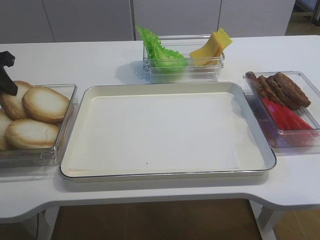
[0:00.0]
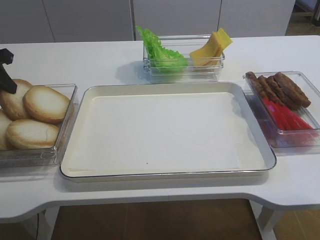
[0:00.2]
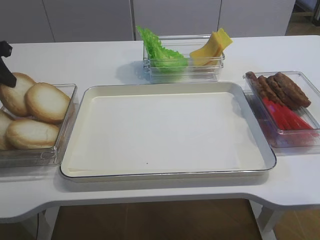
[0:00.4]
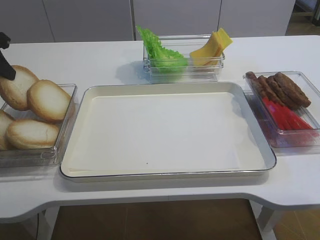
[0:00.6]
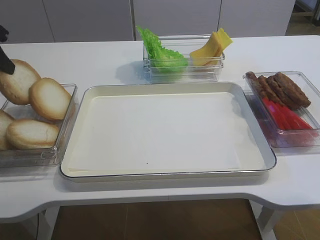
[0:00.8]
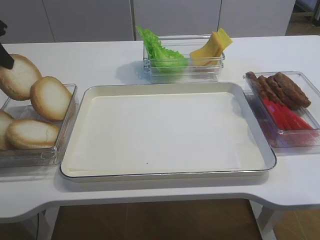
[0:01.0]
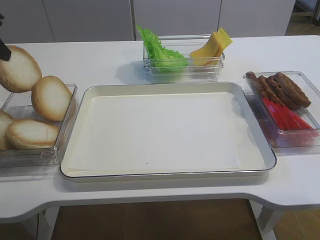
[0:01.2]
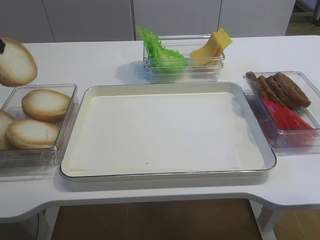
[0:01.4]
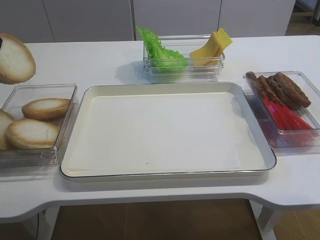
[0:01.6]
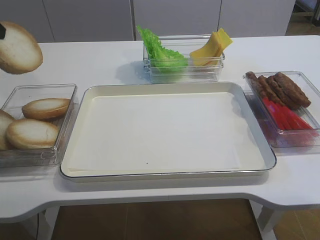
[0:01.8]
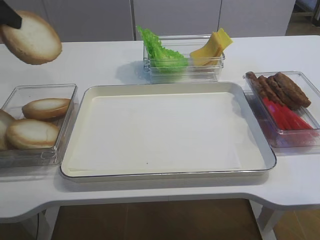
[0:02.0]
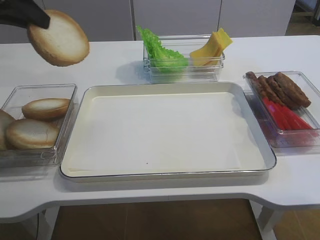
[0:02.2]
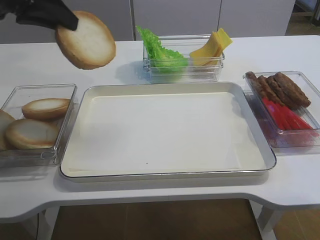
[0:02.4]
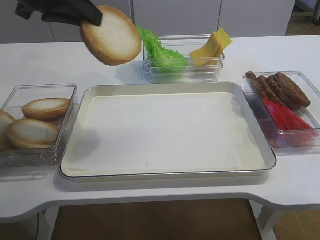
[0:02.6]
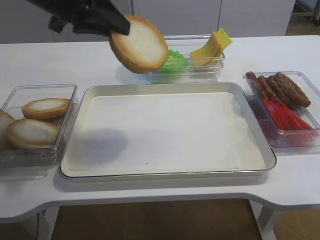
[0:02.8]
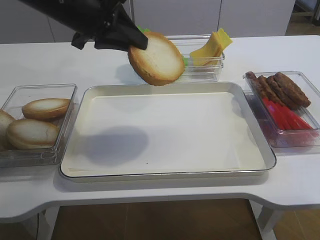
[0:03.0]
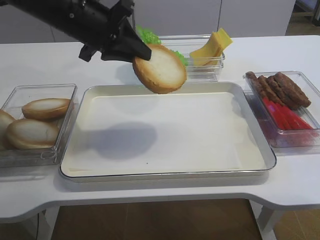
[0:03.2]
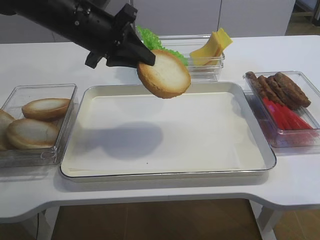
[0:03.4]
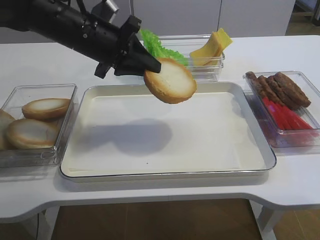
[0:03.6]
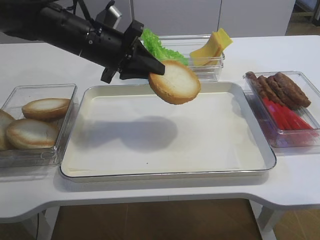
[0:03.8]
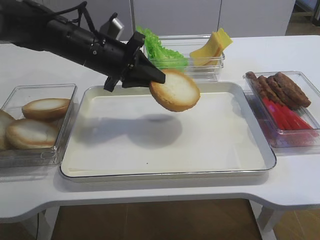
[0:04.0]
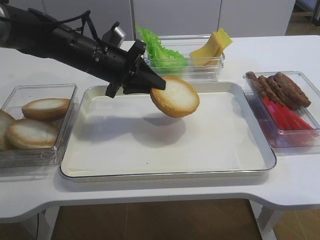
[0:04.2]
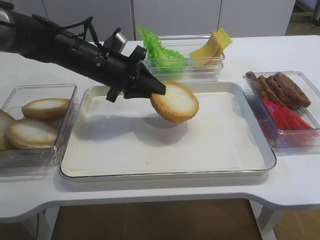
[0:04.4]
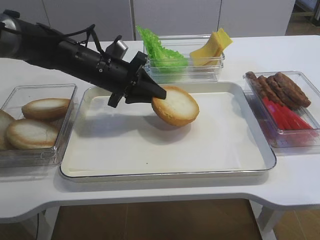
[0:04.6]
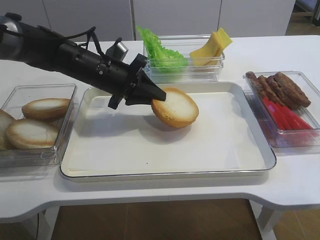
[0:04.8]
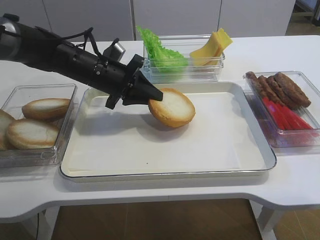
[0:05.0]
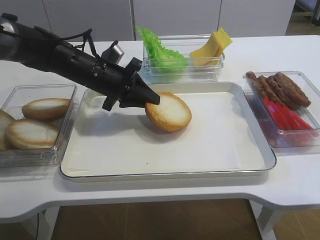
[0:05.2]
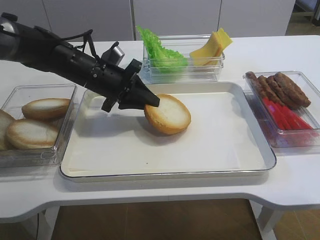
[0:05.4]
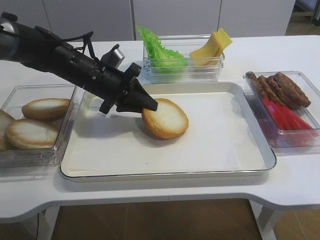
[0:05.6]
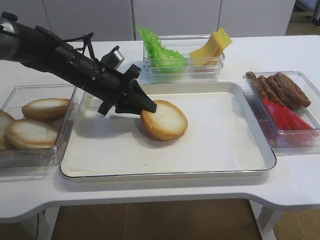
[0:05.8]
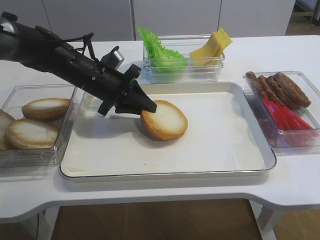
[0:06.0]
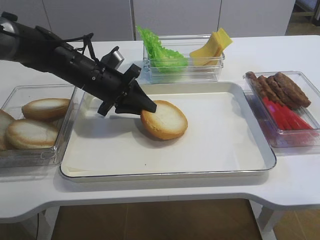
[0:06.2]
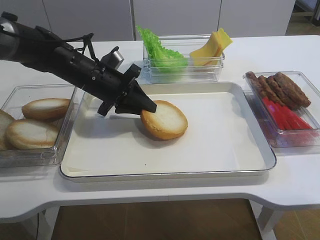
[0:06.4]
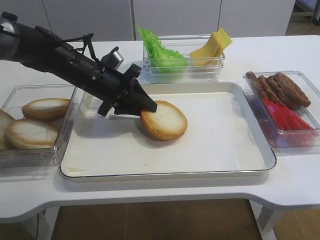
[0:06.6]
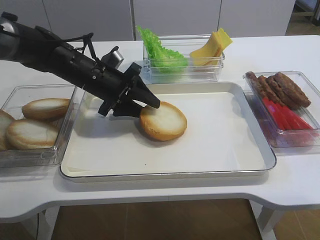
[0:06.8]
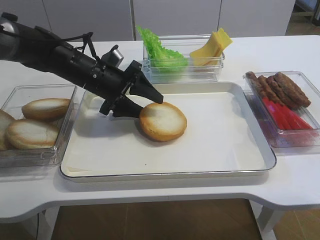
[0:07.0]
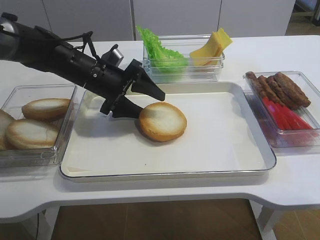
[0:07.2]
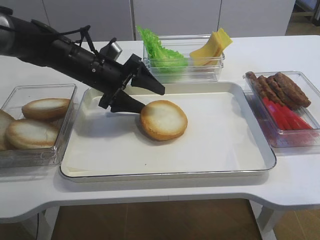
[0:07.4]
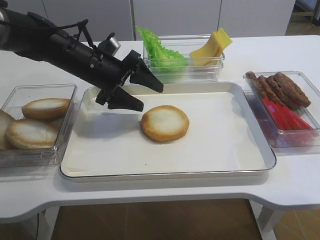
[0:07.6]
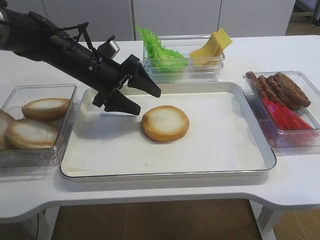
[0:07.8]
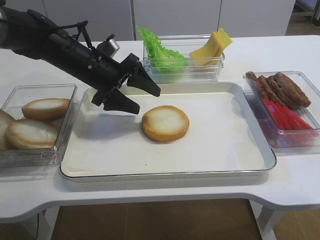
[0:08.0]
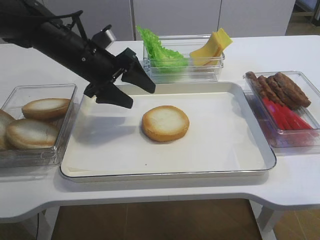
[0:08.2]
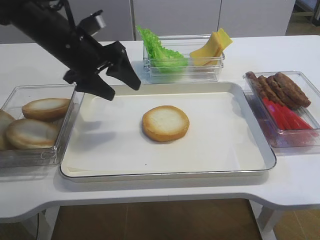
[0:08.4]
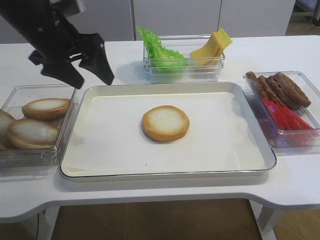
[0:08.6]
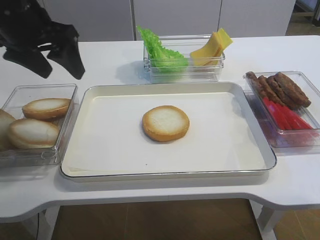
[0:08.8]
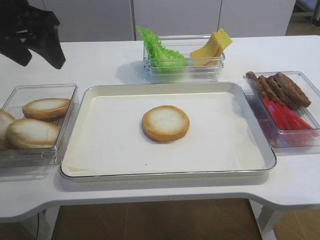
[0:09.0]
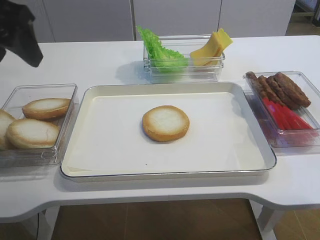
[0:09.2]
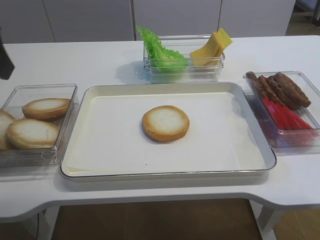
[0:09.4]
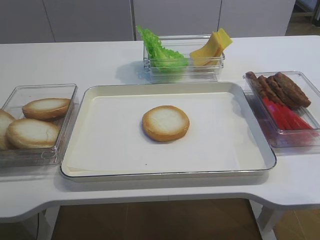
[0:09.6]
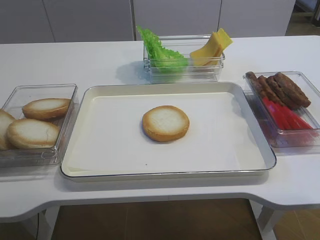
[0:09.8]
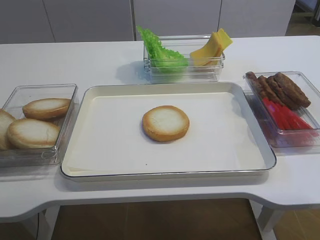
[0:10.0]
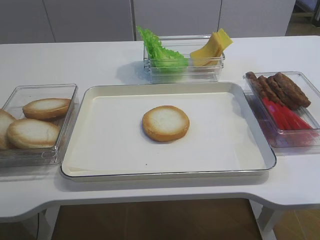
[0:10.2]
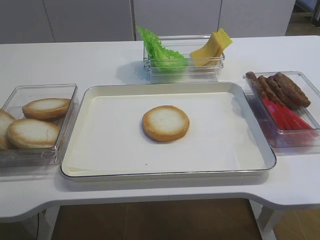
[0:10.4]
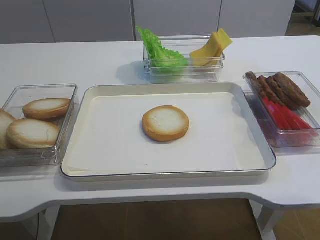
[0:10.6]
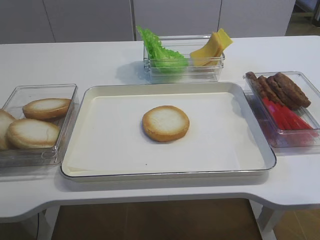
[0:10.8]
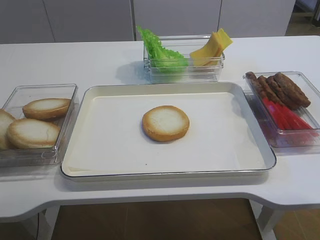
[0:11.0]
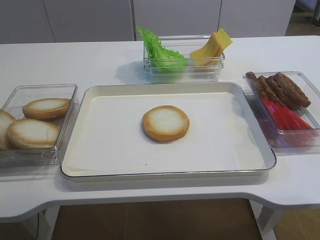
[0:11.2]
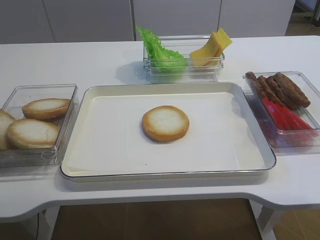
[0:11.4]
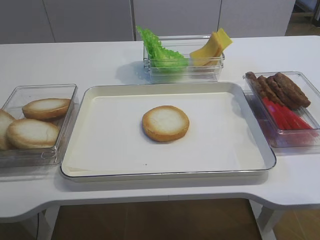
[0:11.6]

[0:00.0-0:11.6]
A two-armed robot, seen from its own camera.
Step, 0:01.4 to 0:07.4: Place the bread slice on the tray with the left gripper.
0:00.0 to 0:01.4: The left gripper moves upward, roughly 10 cm.
0:01.4 to 0:02.8: The left gripper heads to the right, covering approximately 15 cm.
0:02.8 to 0:04.4: The left gripper is displaced downward by roughly 15 cm.
0:04.4 to 0:05.8: There are only small adjustments of the grippers.
0:05.8 to 0:07.2: The left gripper opens up.
0:07.2 to 0:08.8: The left gripper is displaced upward, to the left and backward by about 20 cm.
0:08.8 to 0:10.2: The left gripper shifts approximately 30 cm backward.

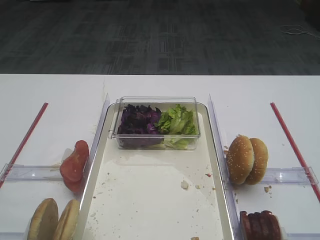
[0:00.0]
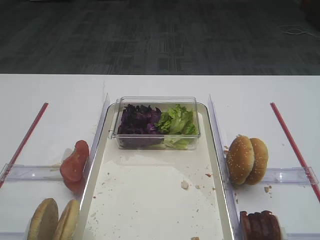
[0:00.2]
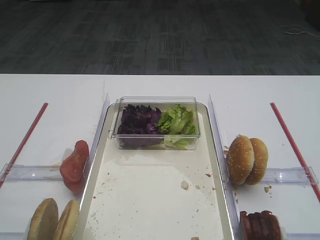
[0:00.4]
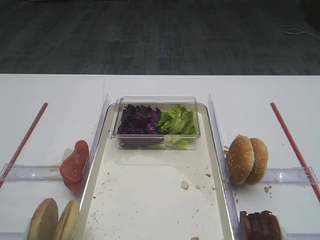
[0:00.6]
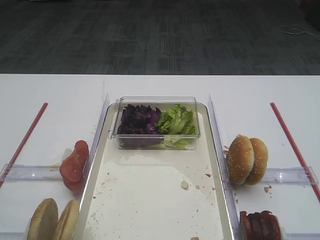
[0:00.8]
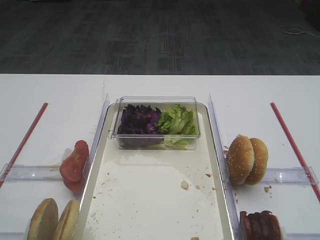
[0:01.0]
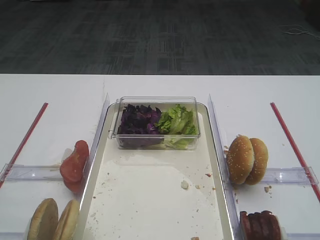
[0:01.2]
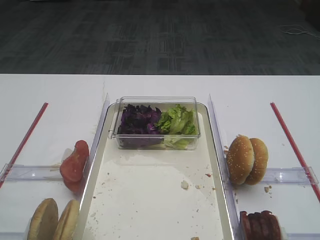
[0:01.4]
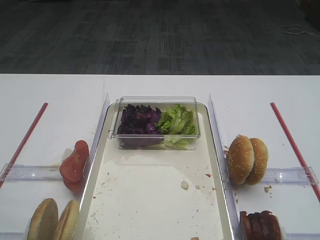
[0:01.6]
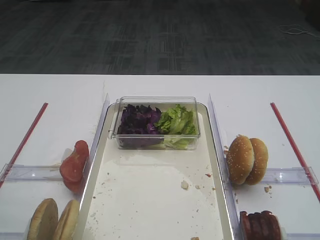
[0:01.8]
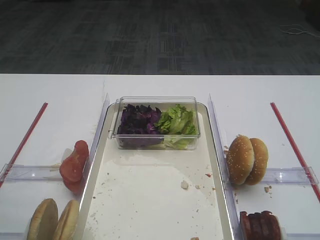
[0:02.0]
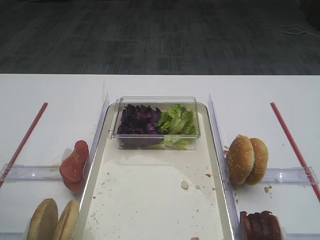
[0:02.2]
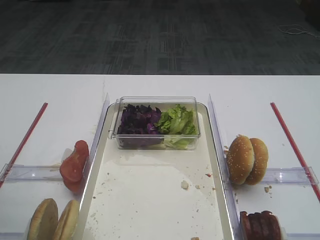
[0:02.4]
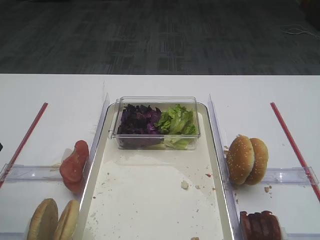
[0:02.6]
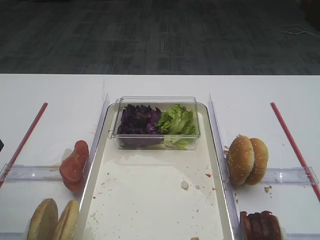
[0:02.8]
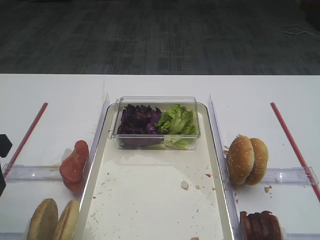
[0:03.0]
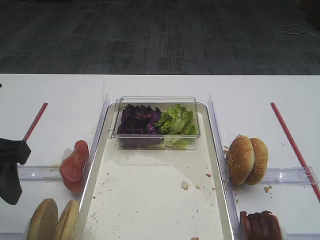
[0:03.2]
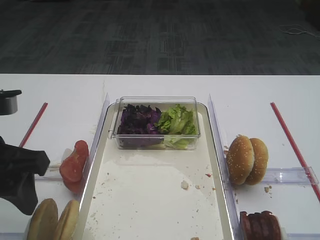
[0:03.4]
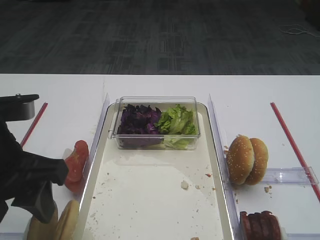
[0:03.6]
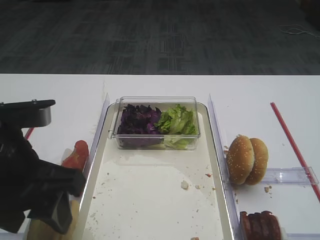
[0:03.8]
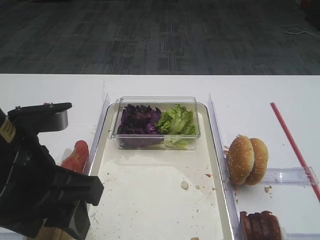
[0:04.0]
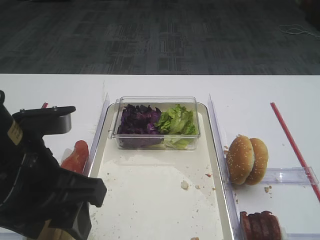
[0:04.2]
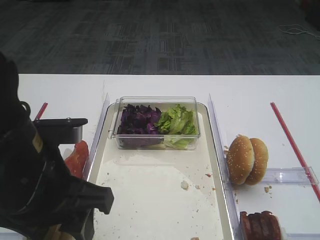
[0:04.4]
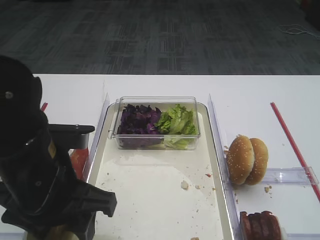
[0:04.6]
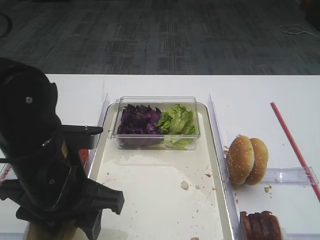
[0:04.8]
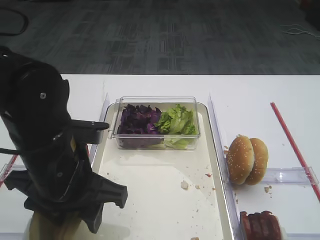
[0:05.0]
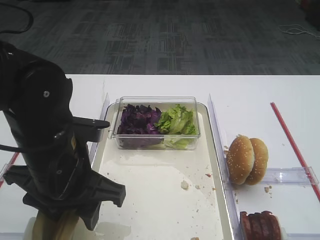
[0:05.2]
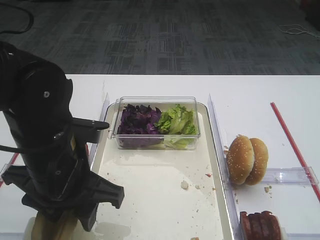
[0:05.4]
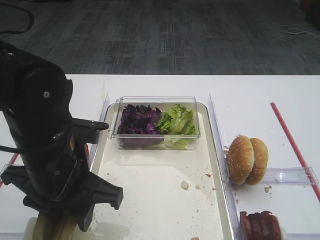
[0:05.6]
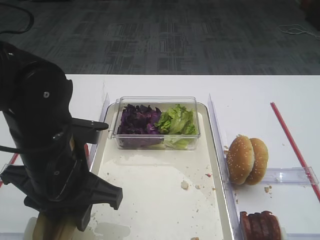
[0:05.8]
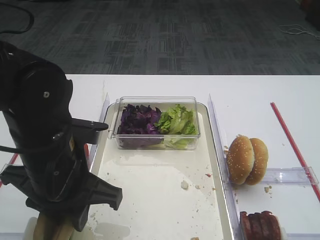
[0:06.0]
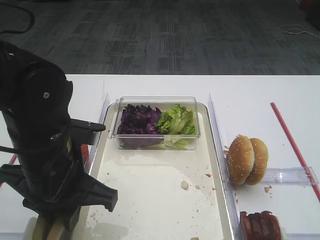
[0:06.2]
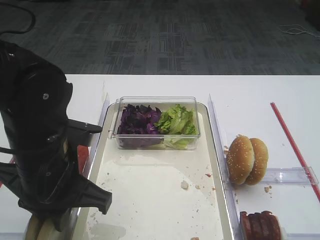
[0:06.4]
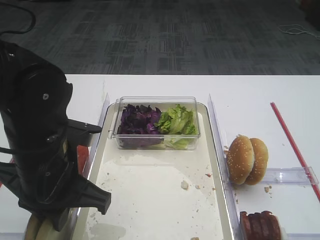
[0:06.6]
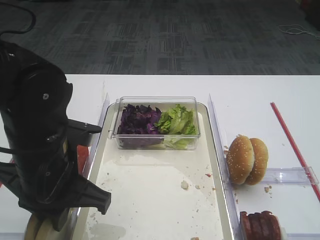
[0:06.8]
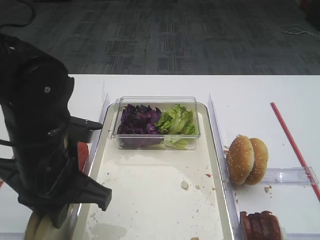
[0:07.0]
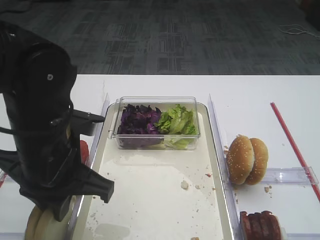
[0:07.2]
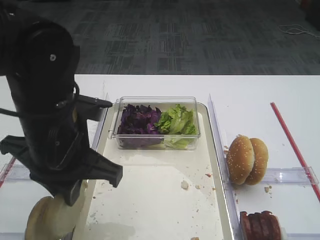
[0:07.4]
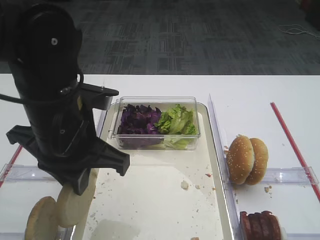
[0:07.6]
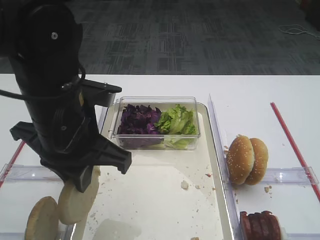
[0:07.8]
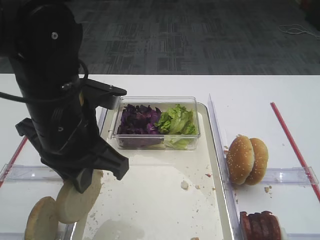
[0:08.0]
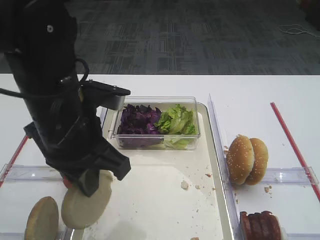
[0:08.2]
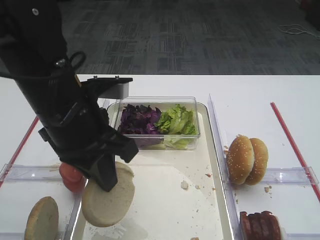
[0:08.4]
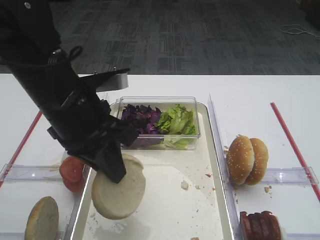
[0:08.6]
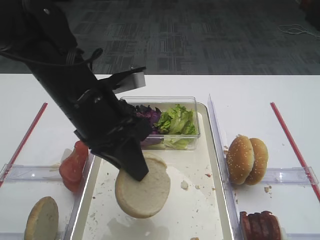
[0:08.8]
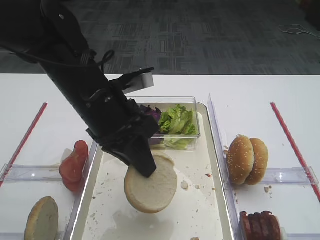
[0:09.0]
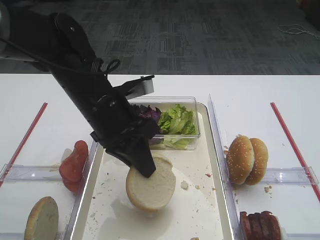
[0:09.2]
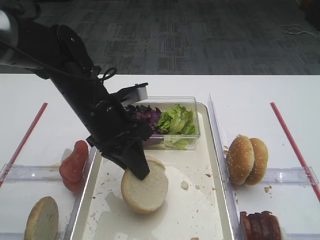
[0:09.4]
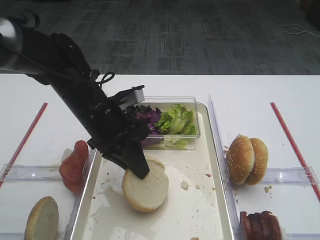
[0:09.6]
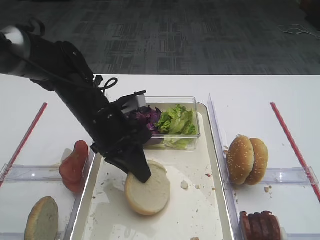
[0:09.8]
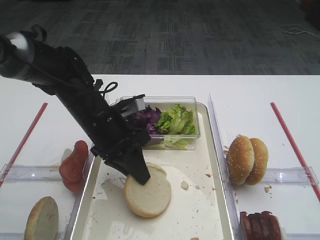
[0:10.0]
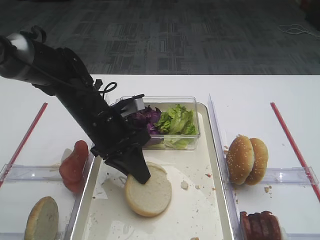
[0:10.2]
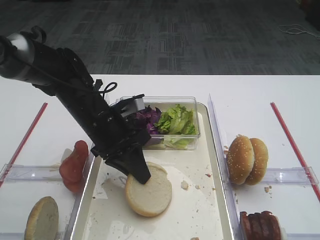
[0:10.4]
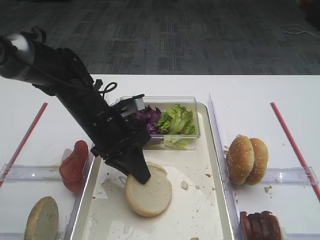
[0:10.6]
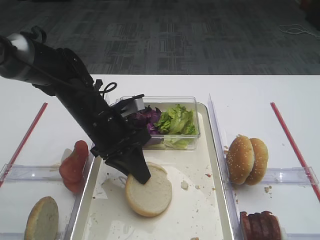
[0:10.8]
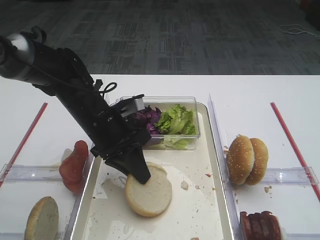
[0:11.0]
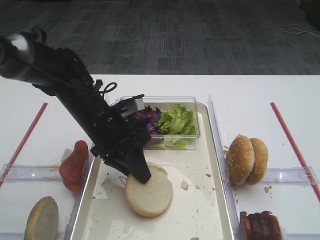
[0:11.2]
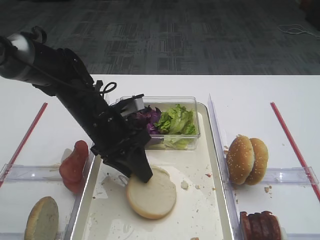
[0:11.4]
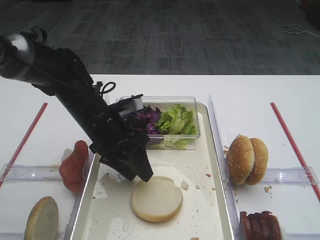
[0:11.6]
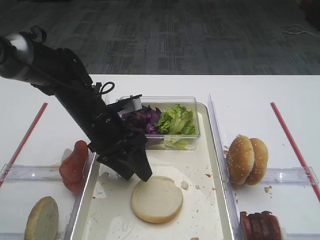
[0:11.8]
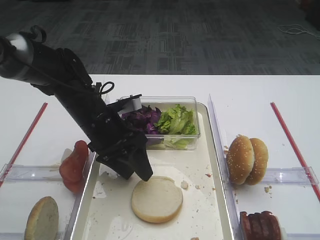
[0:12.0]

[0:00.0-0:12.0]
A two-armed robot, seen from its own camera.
Step, 0:00.0 to 0:07.4: Pick up the bread slice with the left gripper.
0:01.6 to 0:03.0: The left gripper heads forward and downward, covering some 15 cm.
0:03.0 to 0:04.4: The left gripper goes roughly 15 cm to the right.
0:04.4 to 0:06.0: The left gripper shifts by approximately 5 cm, and closes.
0:06.0 to 0:07.6: The left gripper closes its fingers.
0:07.6 to 0:09.0: The left gripper moves about 5 cm.
0:09.0 to 0:10.4: The left gripper shifts approximately 10 cm downward.
0:10.4 to 0:12.0: The left gripper opens.
